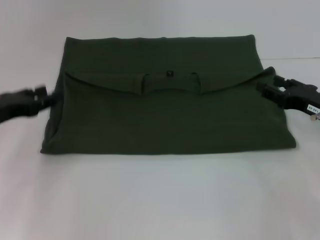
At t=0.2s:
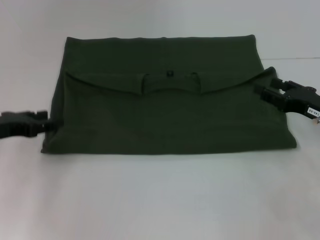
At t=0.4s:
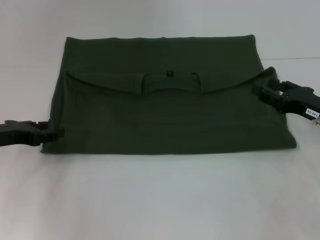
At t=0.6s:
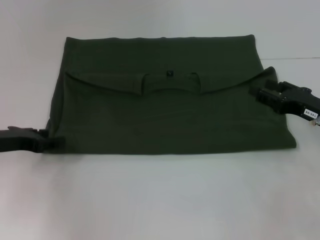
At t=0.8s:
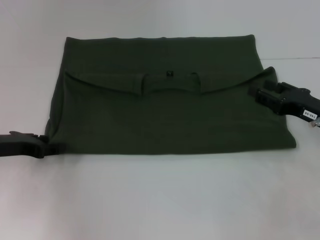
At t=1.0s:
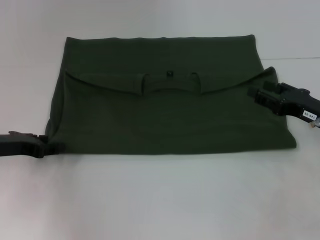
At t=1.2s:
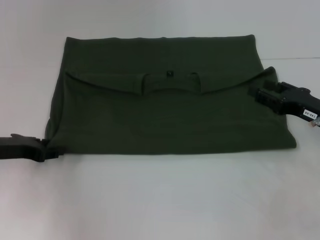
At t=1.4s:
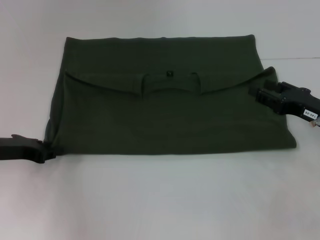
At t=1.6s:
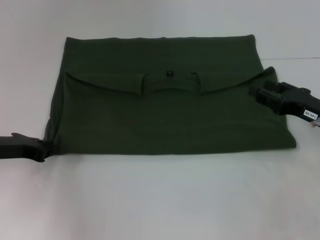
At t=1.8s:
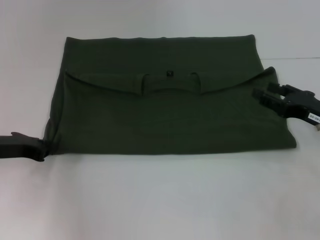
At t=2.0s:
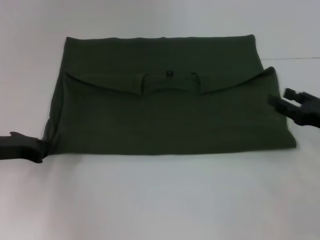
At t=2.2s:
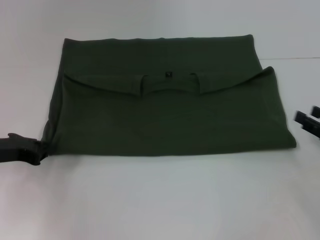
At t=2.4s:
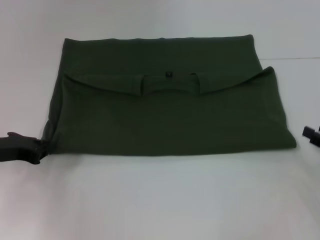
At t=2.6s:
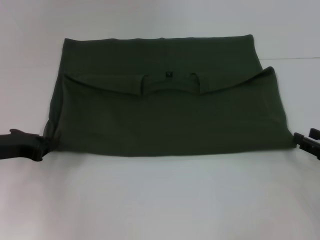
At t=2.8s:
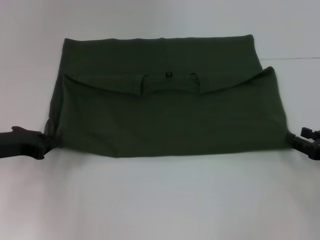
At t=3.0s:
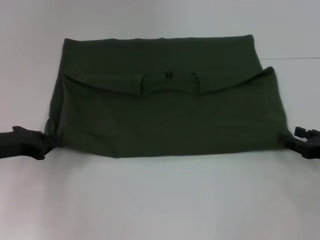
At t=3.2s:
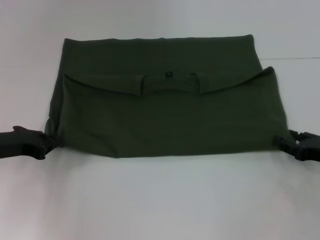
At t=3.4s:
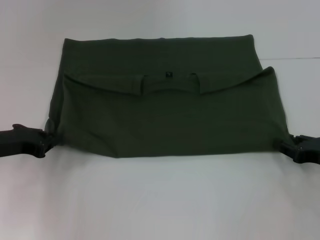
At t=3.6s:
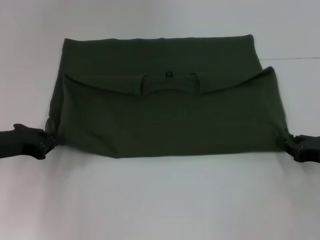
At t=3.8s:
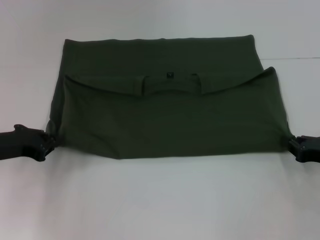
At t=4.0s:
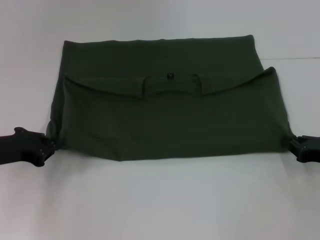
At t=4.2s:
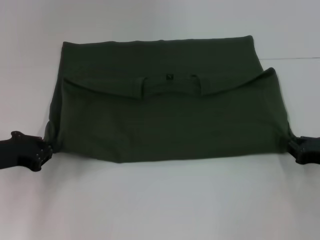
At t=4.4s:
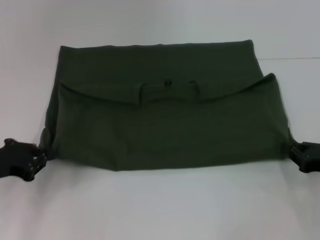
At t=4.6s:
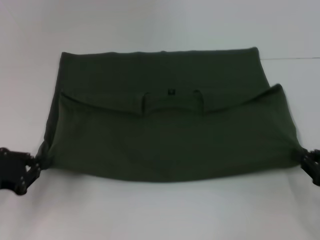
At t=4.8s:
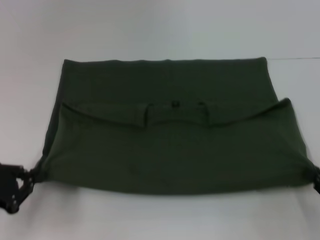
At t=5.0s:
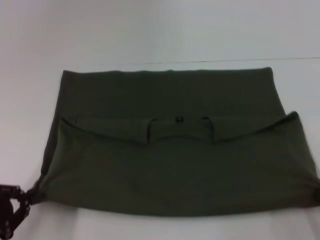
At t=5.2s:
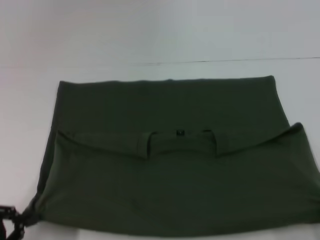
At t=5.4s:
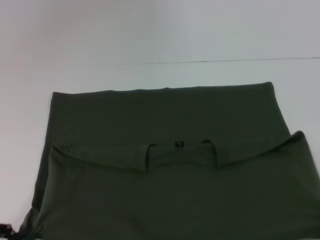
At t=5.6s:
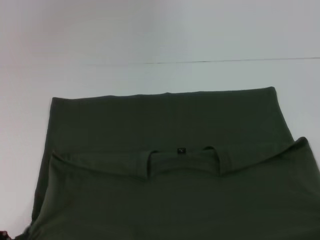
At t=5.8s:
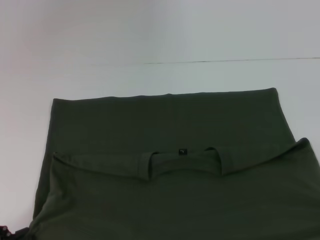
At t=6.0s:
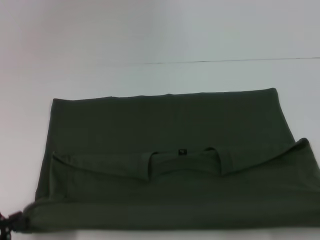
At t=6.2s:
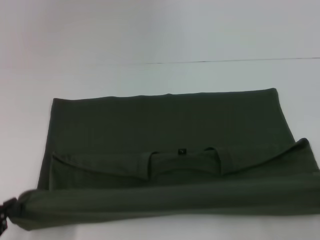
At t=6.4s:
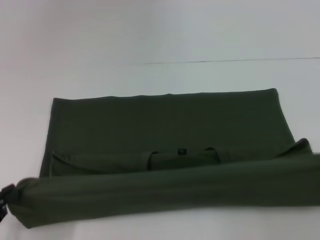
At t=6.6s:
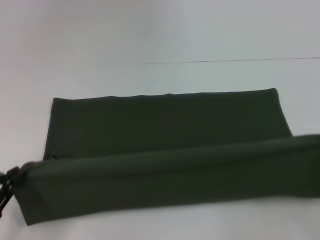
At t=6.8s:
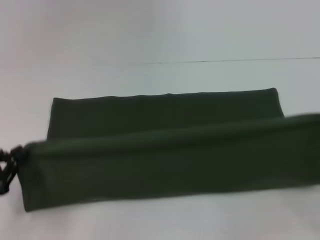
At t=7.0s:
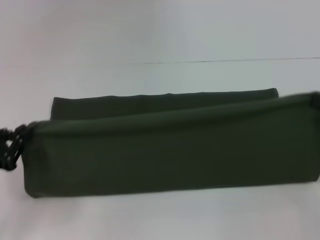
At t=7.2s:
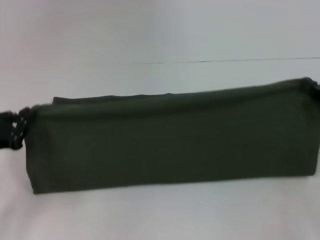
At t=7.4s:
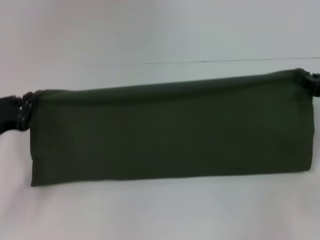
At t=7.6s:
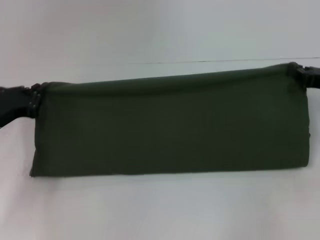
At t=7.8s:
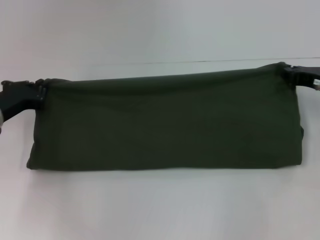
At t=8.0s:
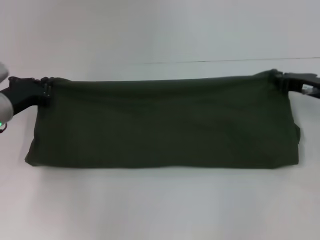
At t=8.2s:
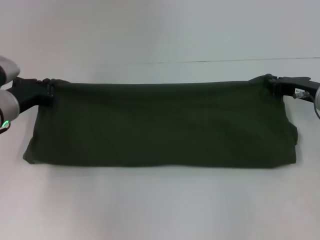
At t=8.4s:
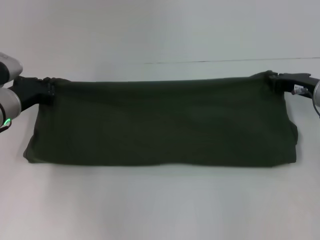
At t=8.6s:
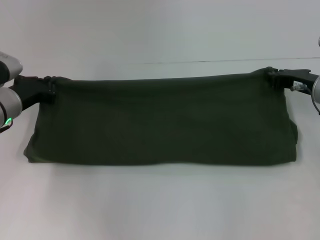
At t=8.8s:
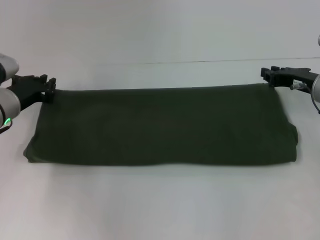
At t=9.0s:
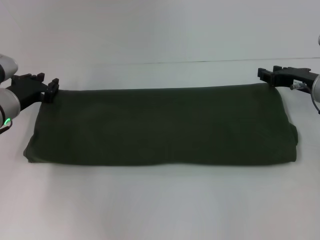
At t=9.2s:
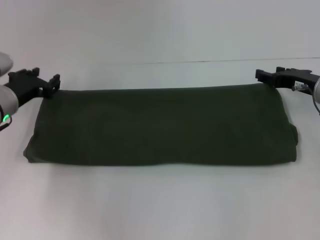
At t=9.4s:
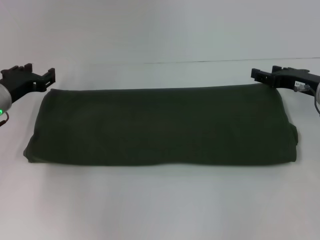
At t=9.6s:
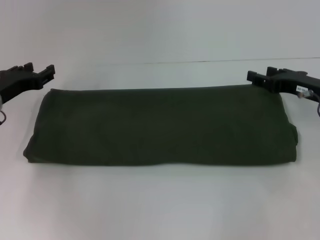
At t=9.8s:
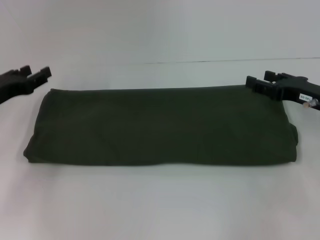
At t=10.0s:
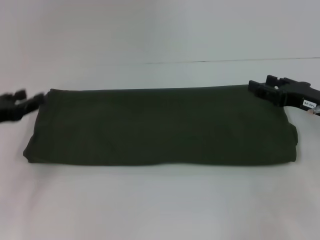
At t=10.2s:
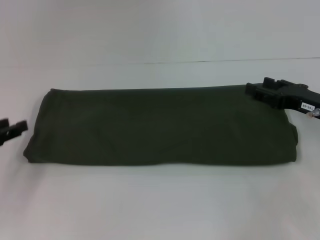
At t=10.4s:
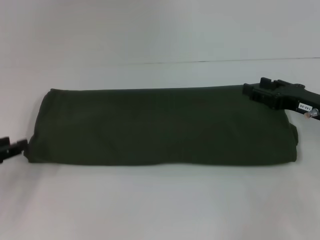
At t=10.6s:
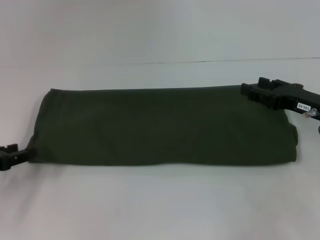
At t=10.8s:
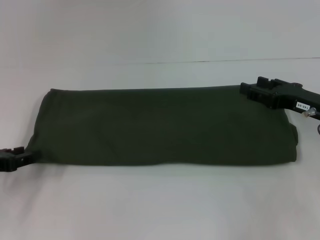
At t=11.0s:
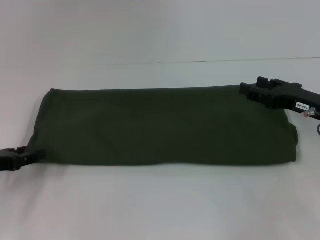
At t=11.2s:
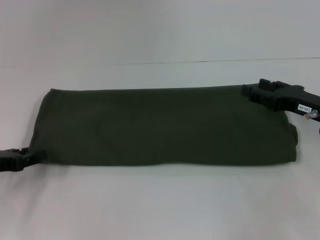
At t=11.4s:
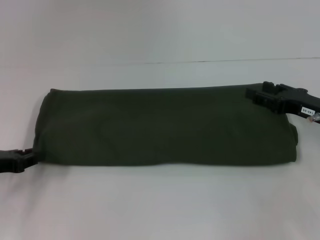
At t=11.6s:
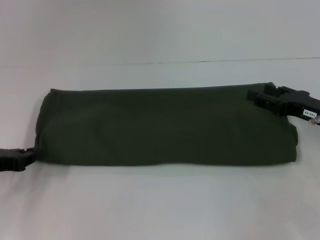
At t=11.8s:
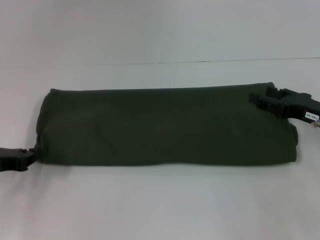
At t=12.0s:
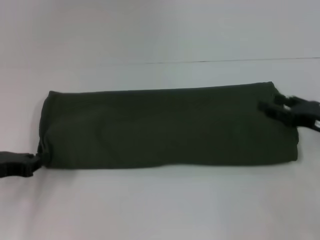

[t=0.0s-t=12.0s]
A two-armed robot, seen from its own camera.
Step, t=0.0s to t=5.6s: Pull the clothes with your left hand.
Step, t=0.0s to t=5.6s: Pull the clothes with your right hand.
Step, t=5.8s to t=8.8s: Fold the clothes with your right hand.
t=1.6s to t=3.0s: The right gripper ends up some 5 cm from where it was.
t=3.0s to t=4.4s: The right gripper closes its fingers.
t=4.4s to t=6.0s: Both grippers travel together backward, approximately 15 cm.
t=6.0s to t=7.6s: Both grippers move forward, about 20 cm.
t=7.6s to t=9.0s: The left gripper goes roughly 5 cm forward; the right gripper moves some 5 cm.
t=9.0s to t=10.4s: The left gripper is displaced backward and to the left by some 15 cm, and opens up; the right gripper moves backward, roughly 5 cm, and opens.
t=10.4s to t=12.0s: The left gripper closes up.

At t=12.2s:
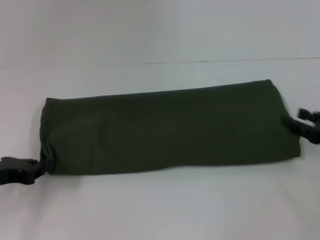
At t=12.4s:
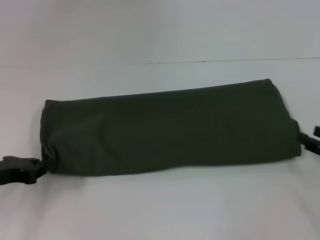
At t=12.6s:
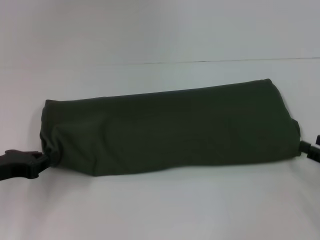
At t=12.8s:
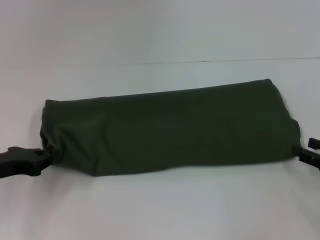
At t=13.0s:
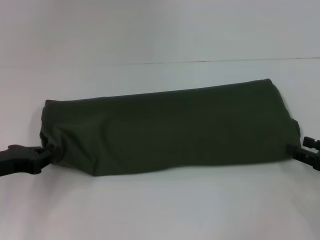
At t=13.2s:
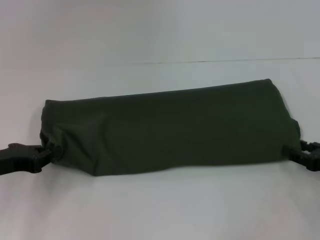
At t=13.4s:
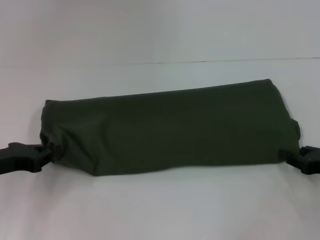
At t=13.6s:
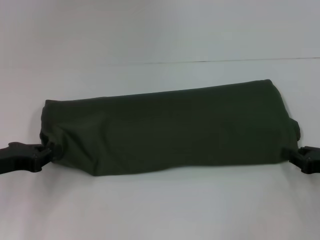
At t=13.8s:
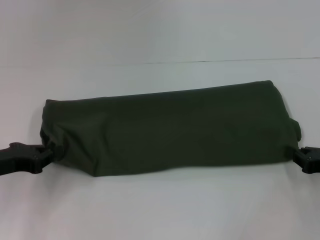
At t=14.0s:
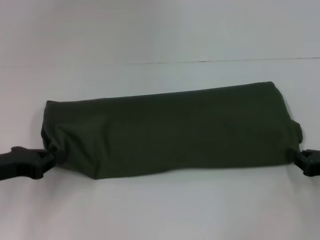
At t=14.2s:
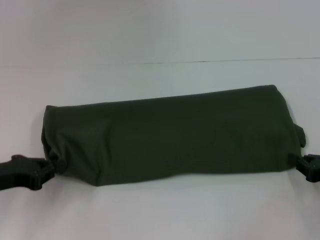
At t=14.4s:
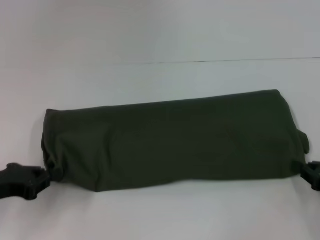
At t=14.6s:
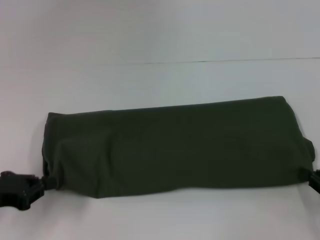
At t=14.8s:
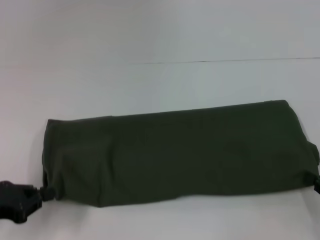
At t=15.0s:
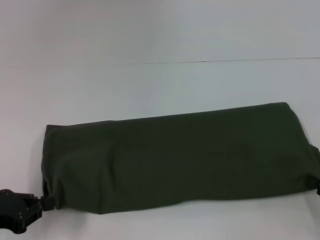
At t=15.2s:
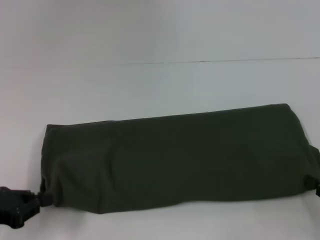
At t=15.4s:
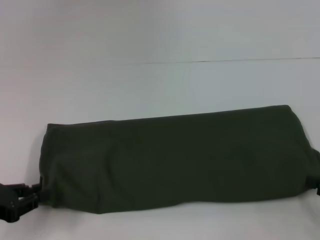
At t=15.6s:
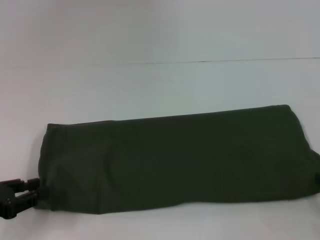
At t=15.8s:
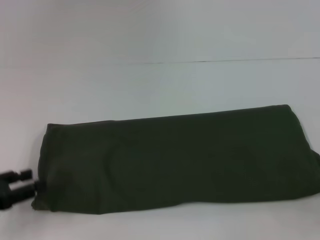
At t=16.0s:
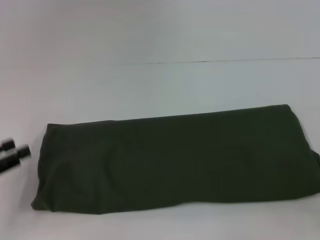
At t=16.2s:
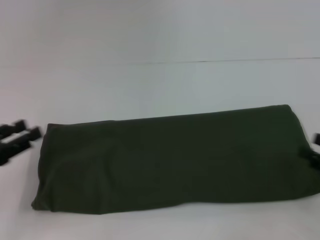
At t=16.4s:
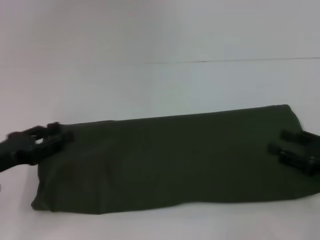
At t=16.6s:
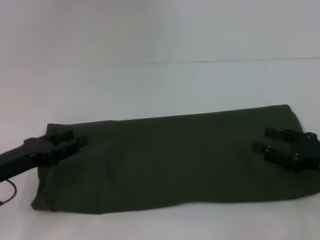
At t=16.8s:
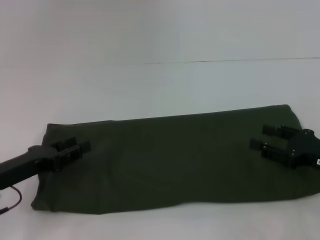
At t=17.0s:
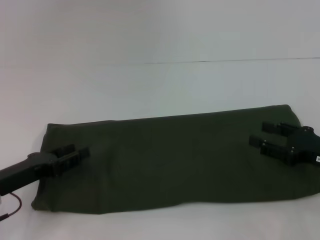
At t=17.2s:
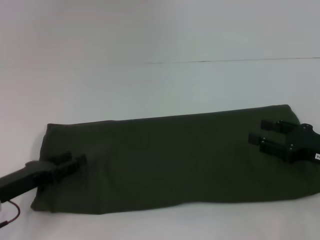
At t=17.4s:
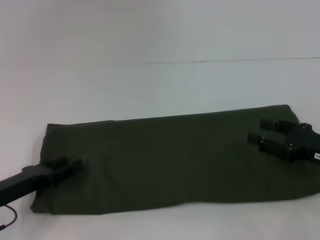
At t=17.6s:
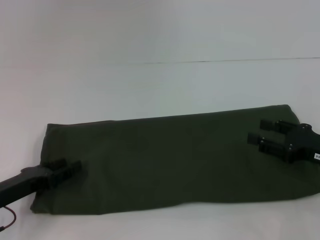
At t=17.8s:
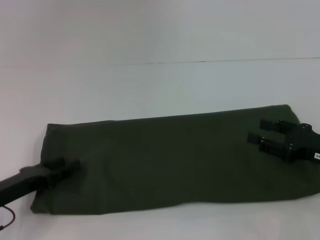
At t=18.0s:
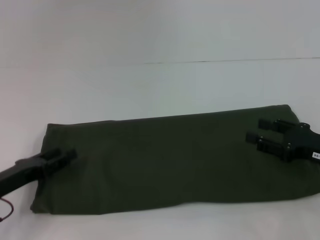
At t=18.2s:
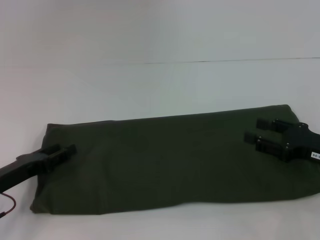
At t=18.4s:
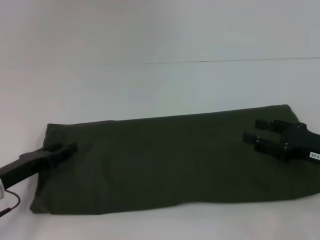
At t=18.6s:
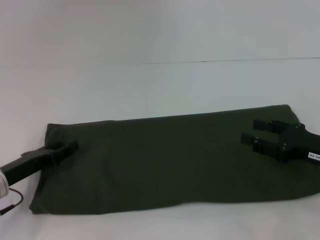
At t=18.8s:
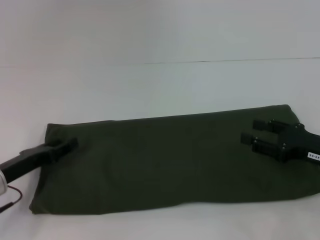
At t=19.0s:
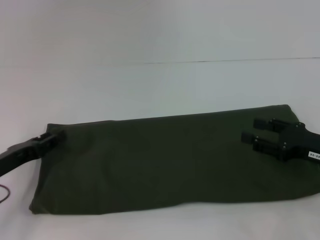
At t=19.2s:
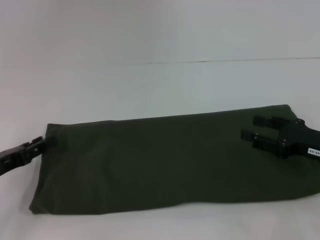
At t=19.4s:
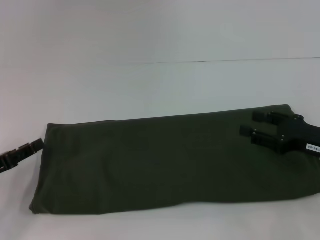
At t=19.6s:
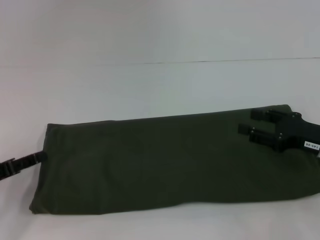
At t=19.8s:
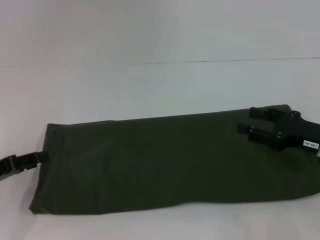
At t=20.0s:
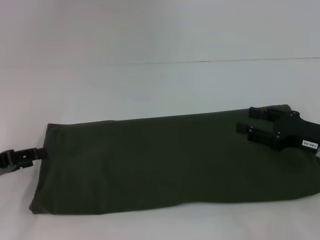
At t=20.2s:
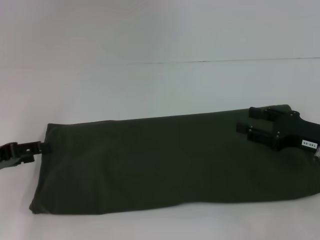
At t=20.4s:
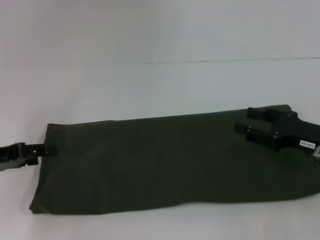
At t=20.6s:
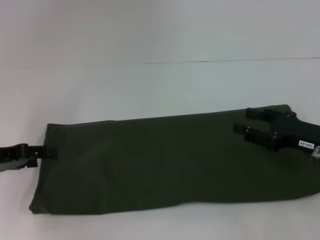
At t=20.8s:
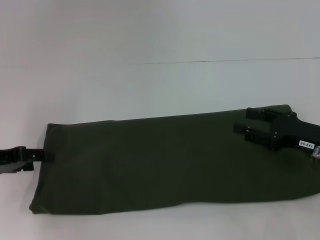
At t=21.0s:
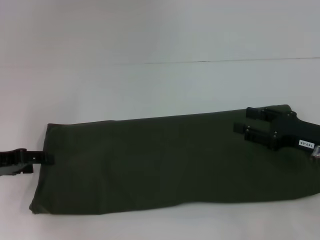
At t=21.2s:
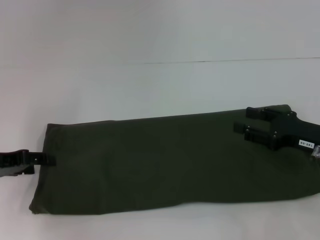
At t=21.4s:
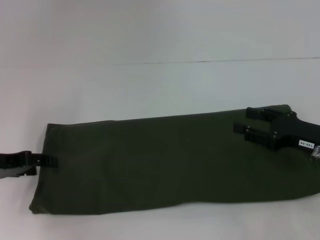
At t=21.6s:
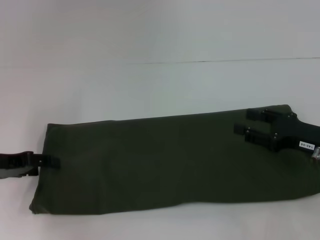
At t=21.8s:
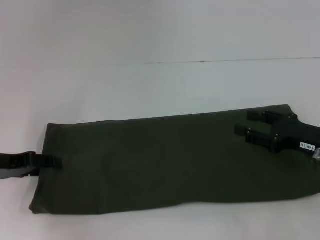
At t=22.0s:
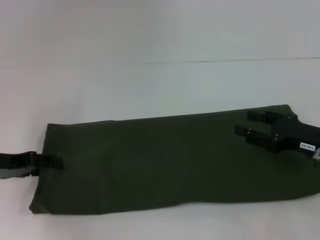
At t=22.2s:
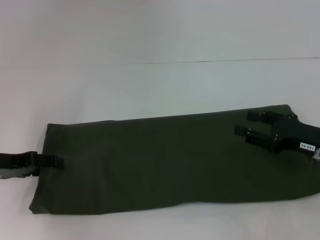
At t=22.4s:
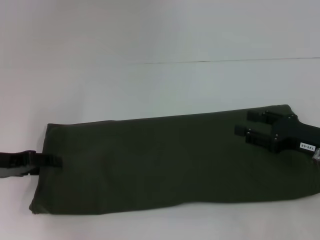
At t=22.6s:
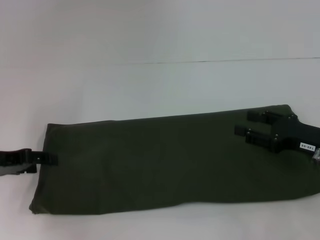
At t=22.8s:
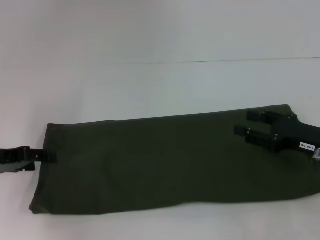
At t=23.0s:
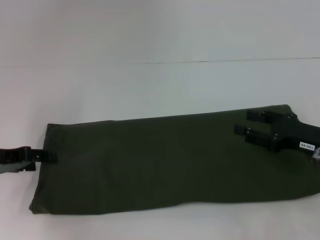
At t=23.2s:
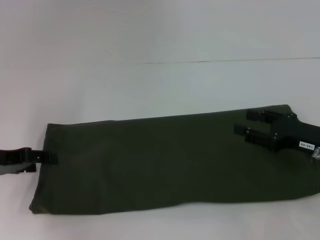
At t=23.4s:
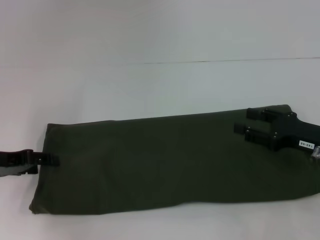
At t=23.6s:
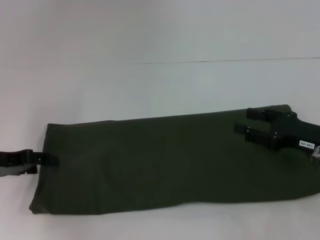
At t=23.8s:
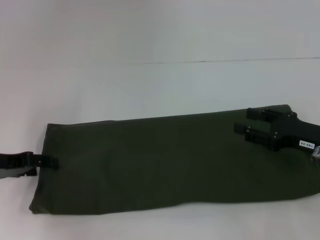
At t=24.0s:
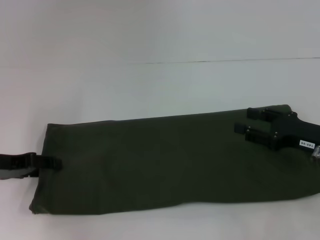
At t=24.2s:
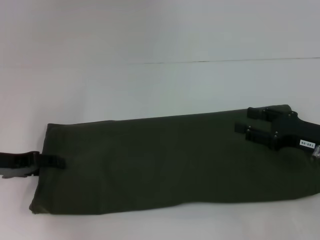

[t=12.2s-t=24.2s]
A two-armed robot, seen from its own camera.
t=12.2s to t=13.8s: The right gripper closes its fingers.
t=13.8s to t=15.2s: The grippers both shift backward by about 5 cm.
t=15.2s to t=16.6s: The right gripper heads forward and to the left, covering about 10 cm, and opens its fingers, while the left gripper moves some 5 cm, and opens its fingers.
t=16.6s to t=18.2s: The grippers stay close to where they were, moving slightly.
t=18.2s to t=19.8s: The left gripper moves some 5 cm.
t=19.8s to t=21.2s: The left gripper changes place by roughly 5 cm.
t=21.2s to t=22.6s: The two grippers keep their place.
t=22.6s to t=24.2s: Neither gripper changes place.
